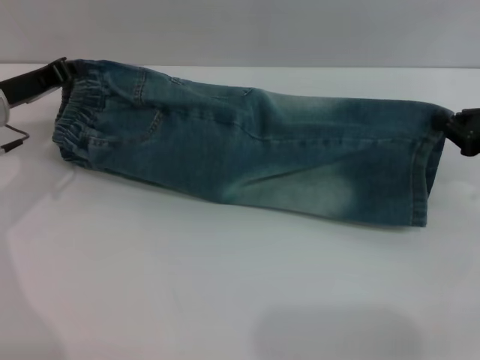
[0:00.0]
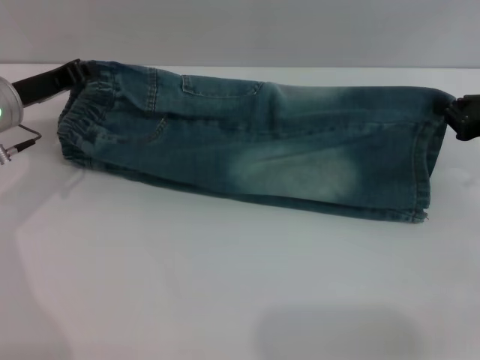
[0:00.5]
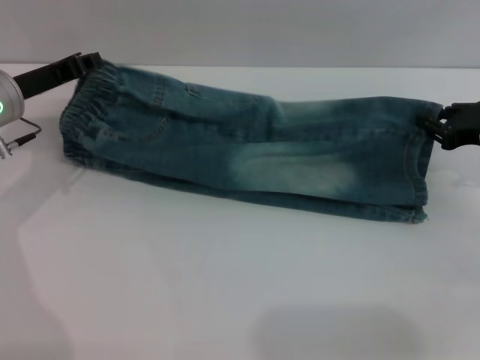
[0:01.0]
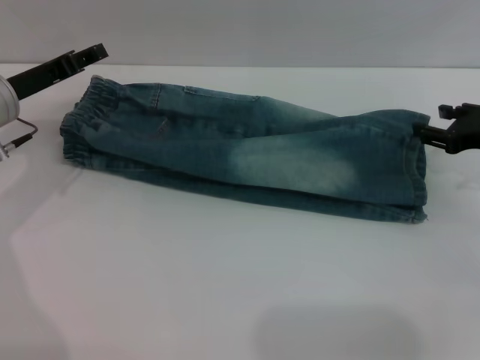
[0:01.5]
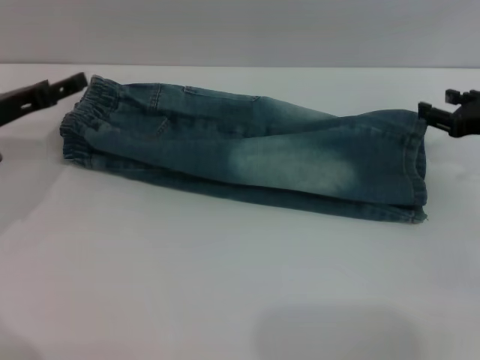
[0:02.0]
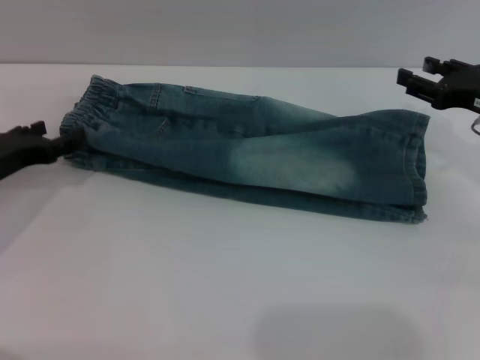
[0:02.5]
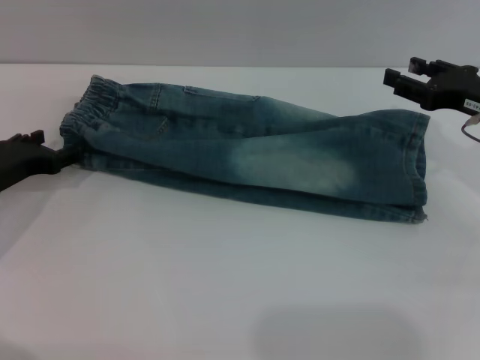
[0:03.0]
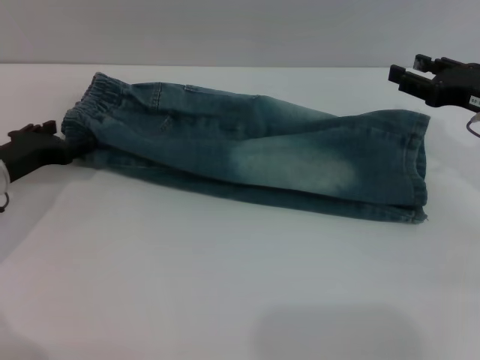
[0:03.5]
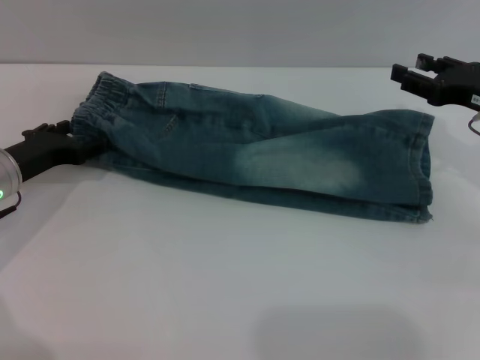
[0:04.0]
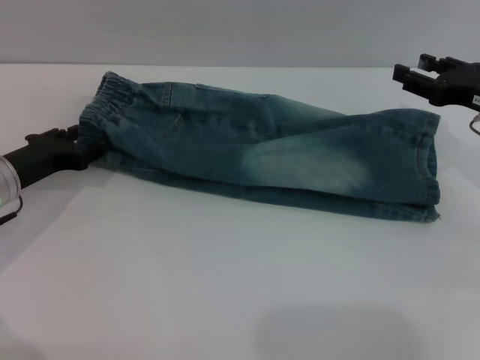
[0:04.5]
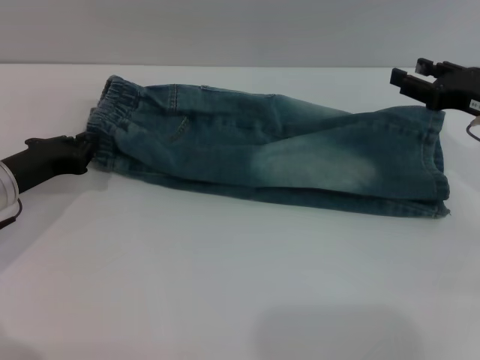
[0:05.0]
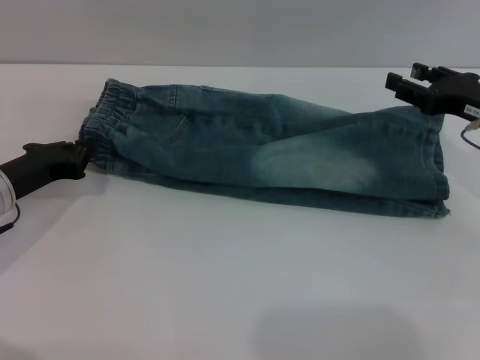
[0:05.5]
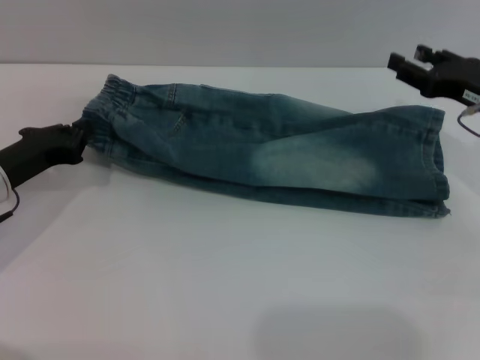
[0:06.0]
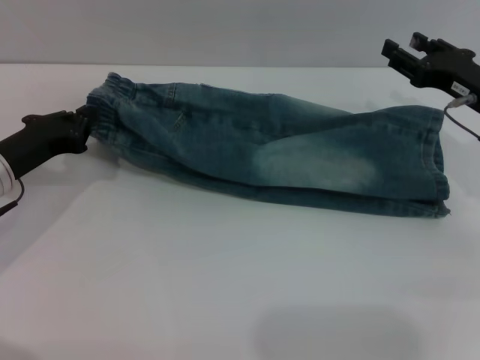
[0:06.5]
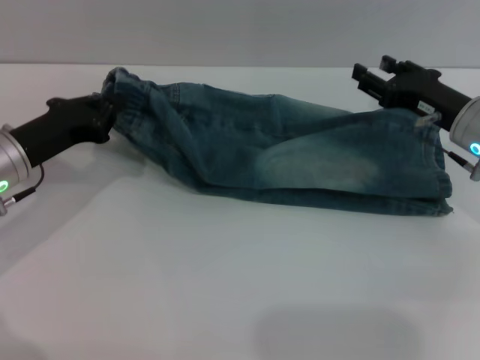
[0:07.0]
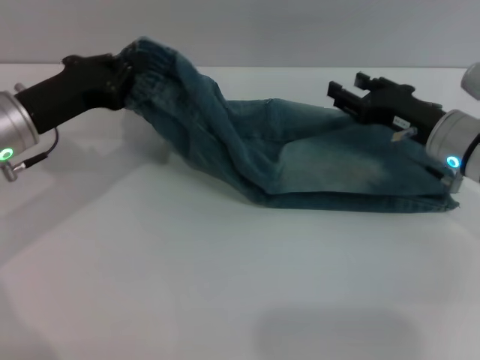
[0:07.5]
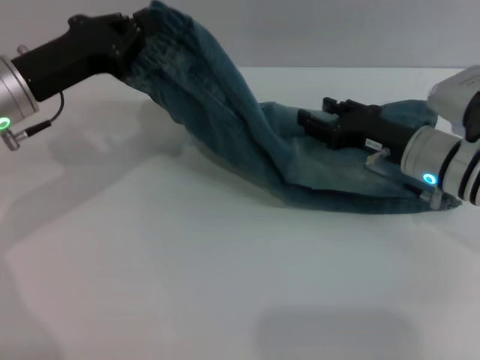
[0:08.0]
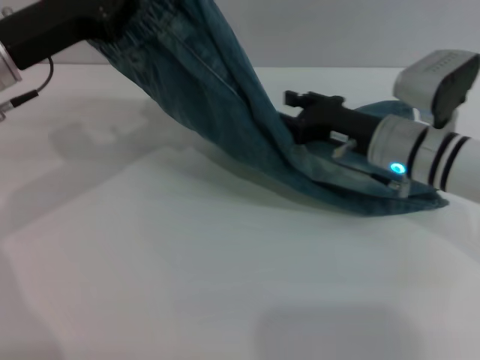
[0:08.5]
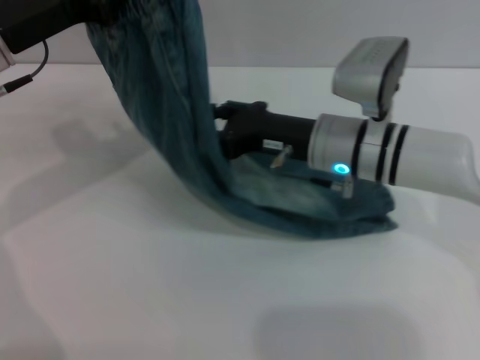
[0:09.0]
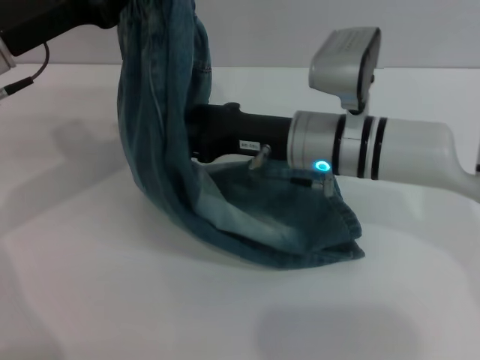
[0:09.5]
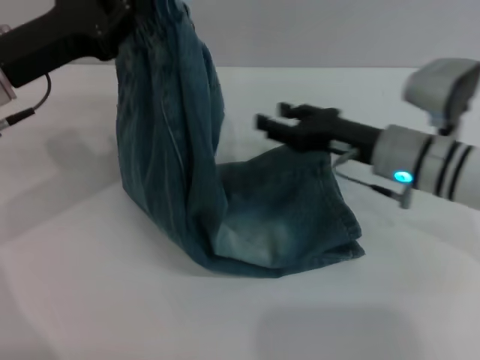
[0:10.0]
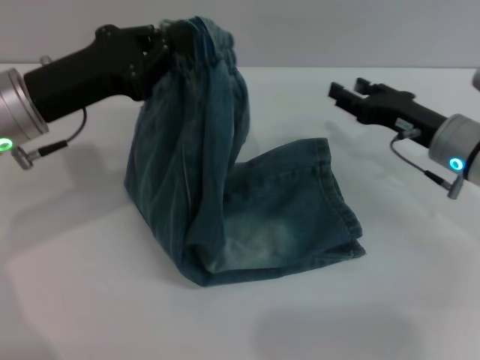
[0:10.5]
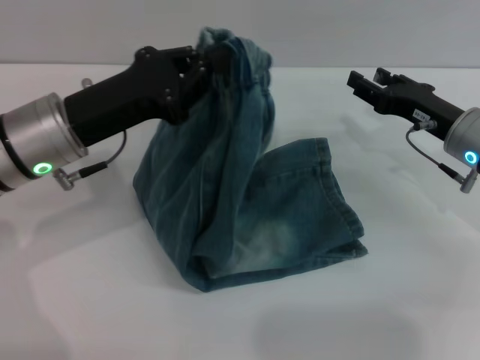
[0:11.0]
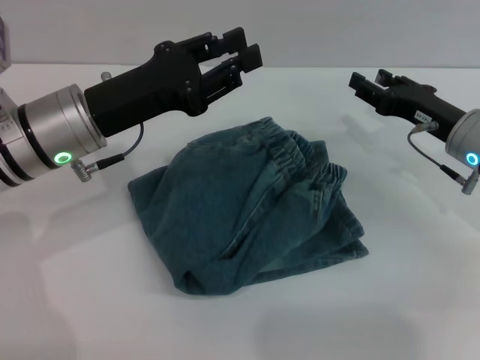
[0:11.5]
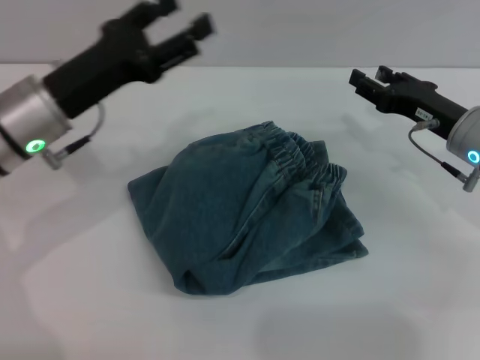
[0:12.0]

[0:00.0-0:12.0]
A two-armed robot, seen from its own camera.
0:00.0 to 0:02.0: The right gripper opens up. Meanwhile the left gripper opens up.
0:02.0 to 0:04.0: The left gripper shifts roughly 5 cm downward.
0:04.0 to 0:06.0: The left gripper closes up.
0:06.0 to 0:08.0: The left gripper goes some 10 cm upward. The right gripper shifts roughly 10 cm to the left.
0:08.0 to 0:10.0: The right gripper travels to the left and back again, approximately 10 cm each way.
0:10.0 to 0:12.0: The right gripper goes some 10 cm to the right; the left gripper moves roughly 5 cm, and opens up.

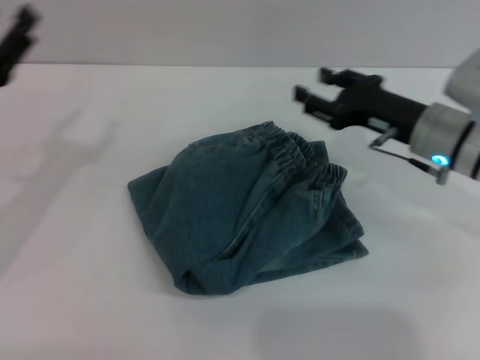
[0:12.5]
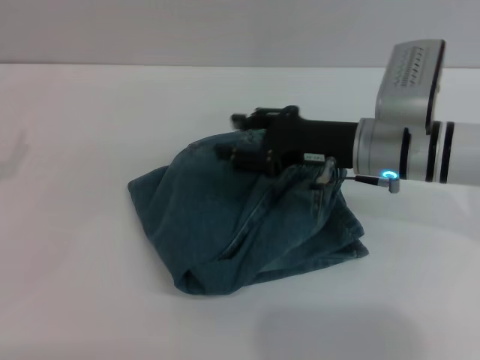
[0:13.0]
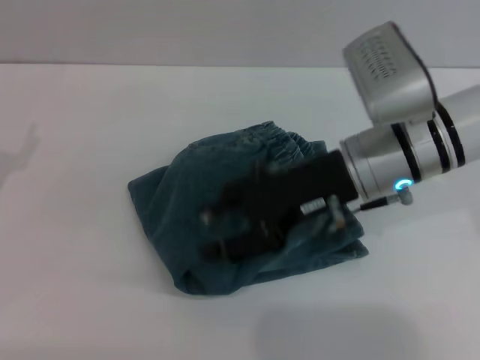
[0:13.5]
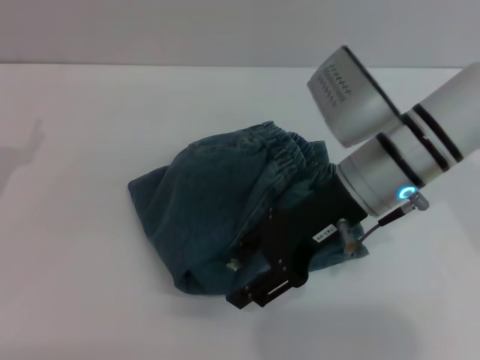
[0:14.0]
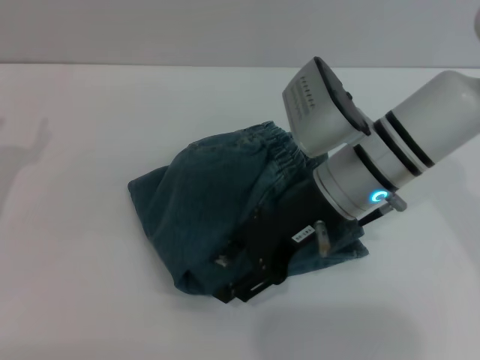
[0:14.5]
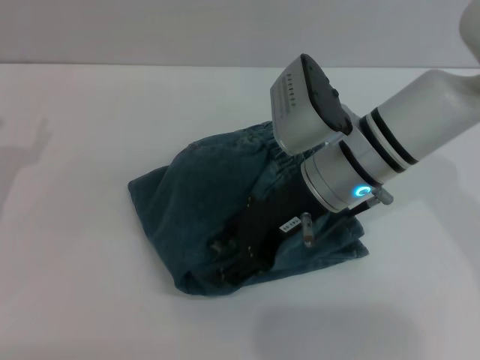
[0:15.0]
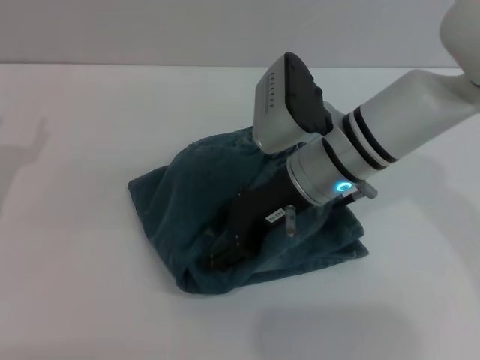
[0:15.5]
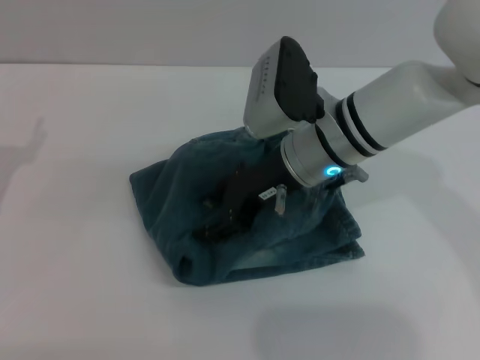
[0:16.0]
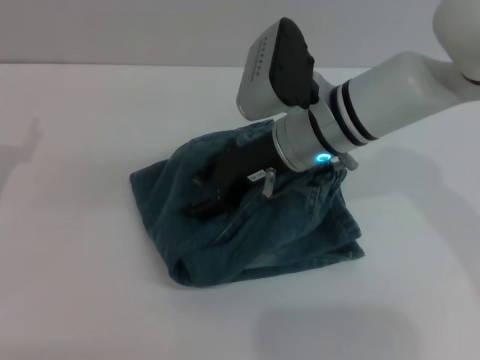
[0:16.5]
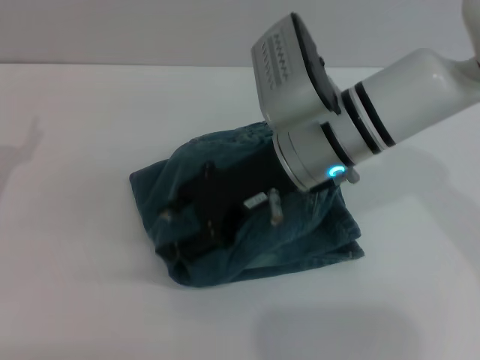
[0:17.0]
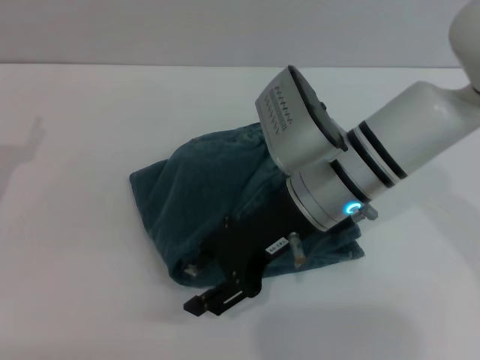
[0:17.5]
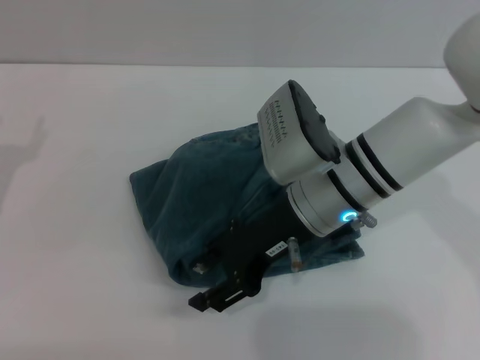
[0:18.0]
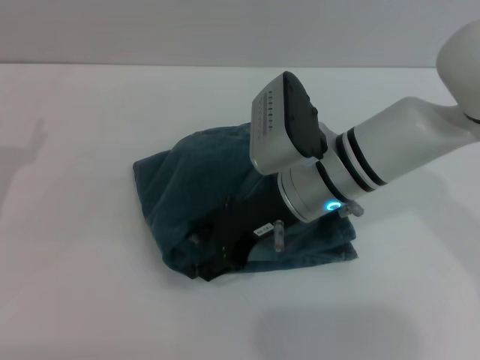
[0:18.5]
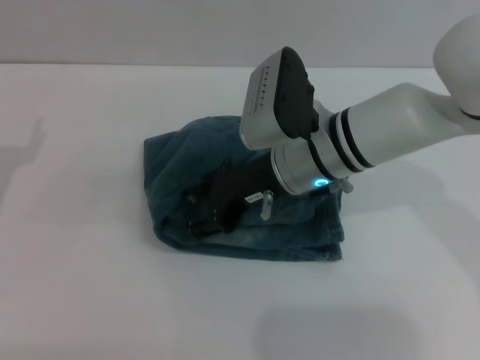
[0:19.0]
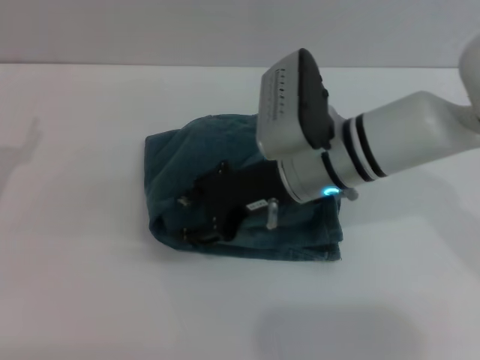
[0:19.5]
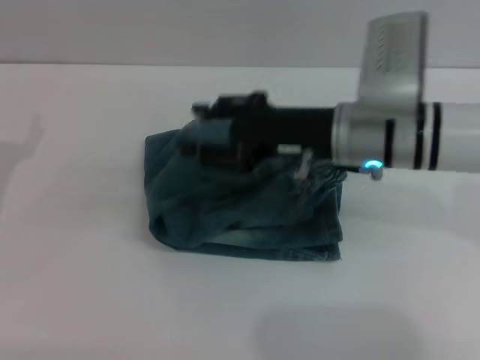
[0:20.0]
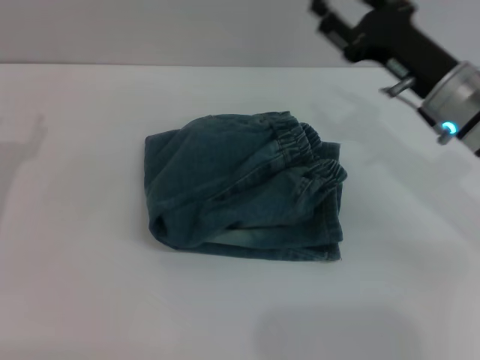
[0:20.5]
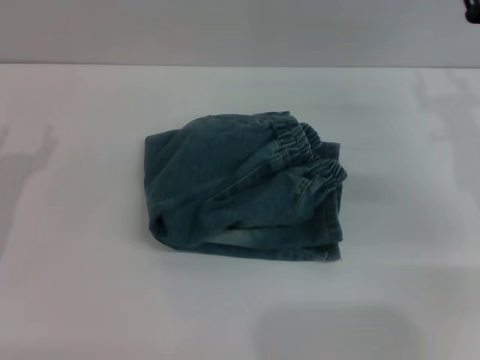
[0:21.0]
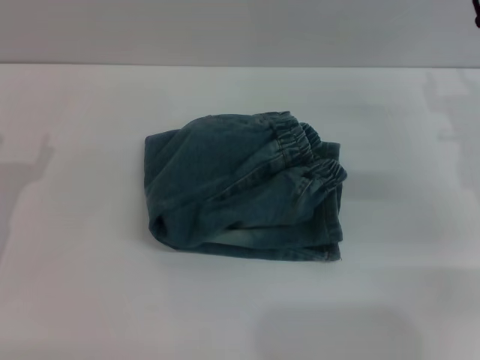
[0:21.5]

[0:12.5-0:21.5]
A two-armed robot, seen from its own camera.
Step, 0:14.0 to 0:18.0: Place the folded trousers onto the center area with the right grippers.
0:12.5 to 0:14.5: The right gripper heads to the left and upward, covering roughly 10 cm.
0:14.5 to 0:19.5: The grippers stay close to where they were, moving slightly.
0:19.5 to 0:21.5: The right gripper shifts about 20 cm to the right.
